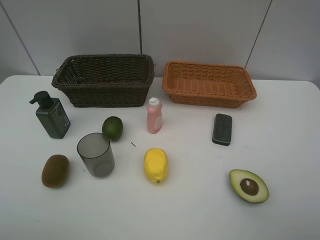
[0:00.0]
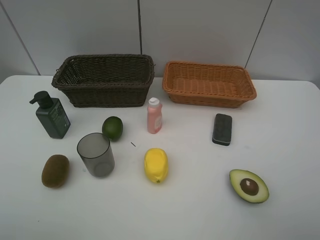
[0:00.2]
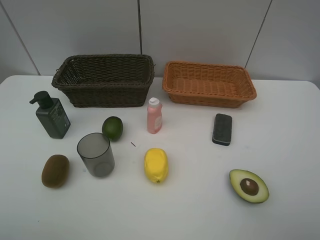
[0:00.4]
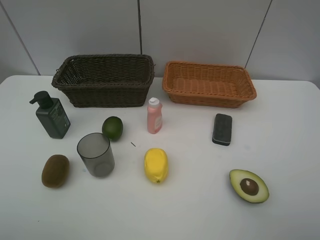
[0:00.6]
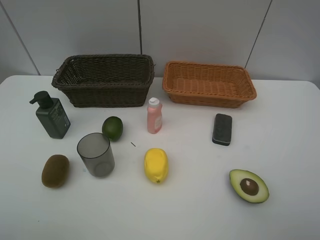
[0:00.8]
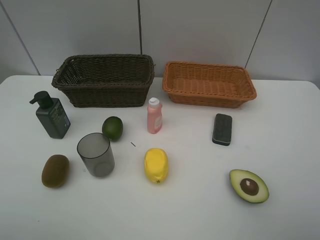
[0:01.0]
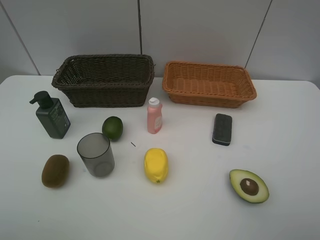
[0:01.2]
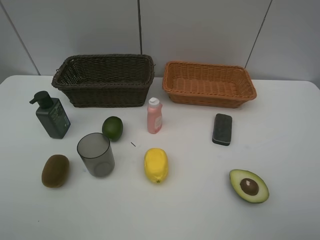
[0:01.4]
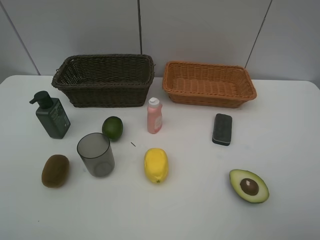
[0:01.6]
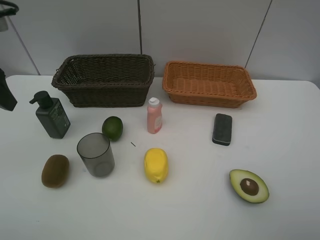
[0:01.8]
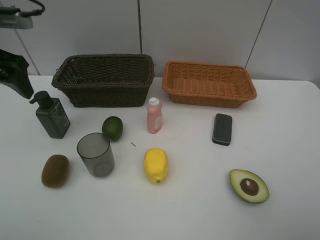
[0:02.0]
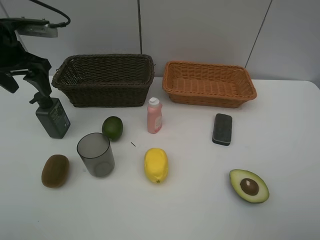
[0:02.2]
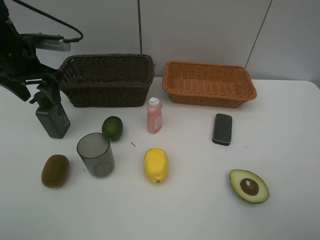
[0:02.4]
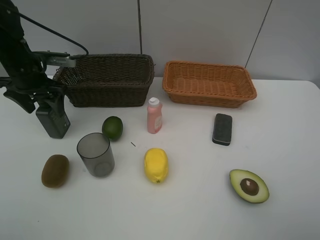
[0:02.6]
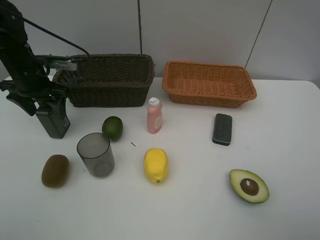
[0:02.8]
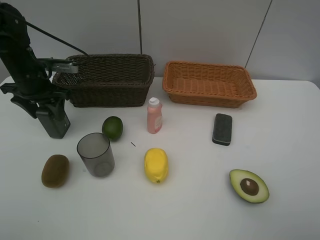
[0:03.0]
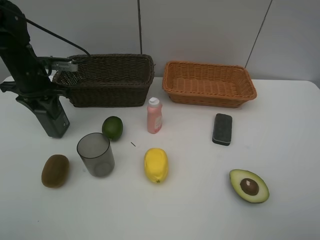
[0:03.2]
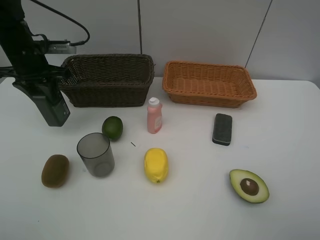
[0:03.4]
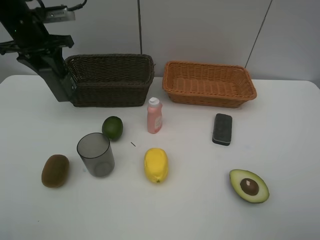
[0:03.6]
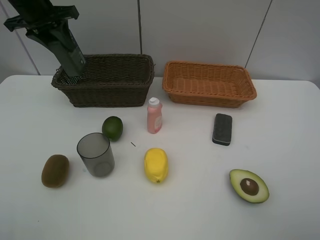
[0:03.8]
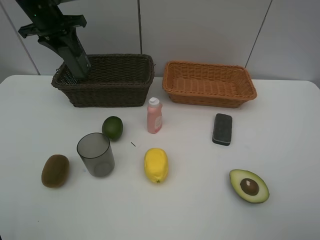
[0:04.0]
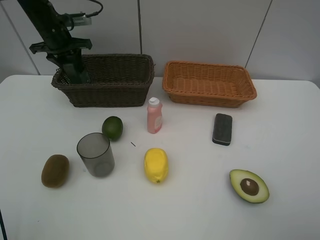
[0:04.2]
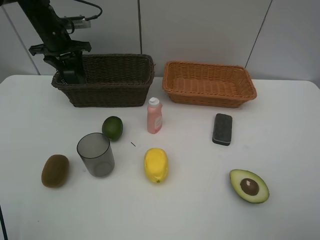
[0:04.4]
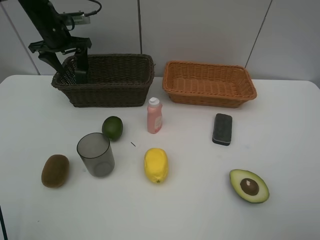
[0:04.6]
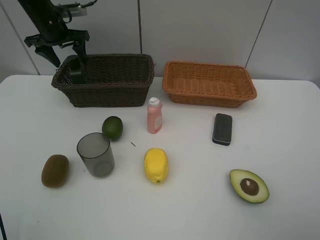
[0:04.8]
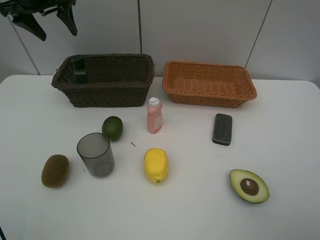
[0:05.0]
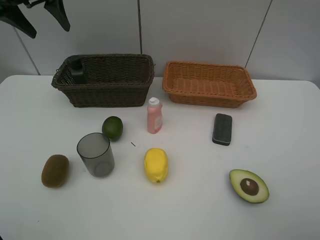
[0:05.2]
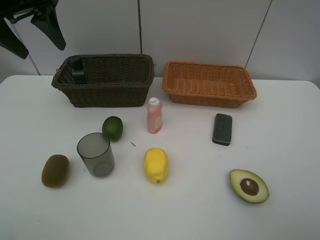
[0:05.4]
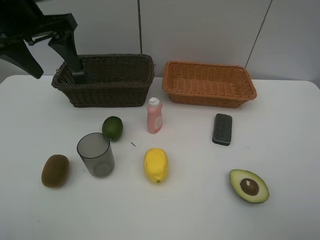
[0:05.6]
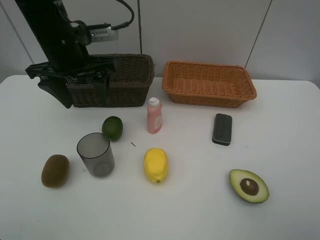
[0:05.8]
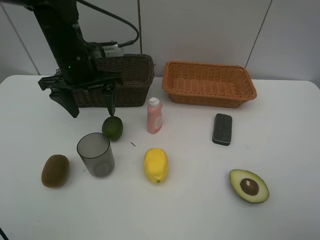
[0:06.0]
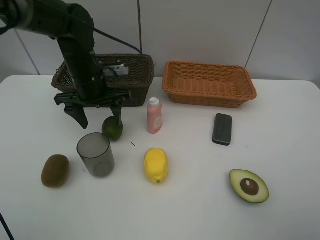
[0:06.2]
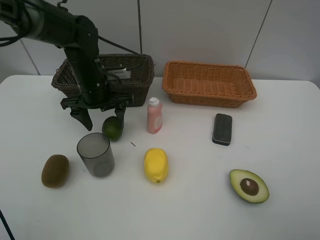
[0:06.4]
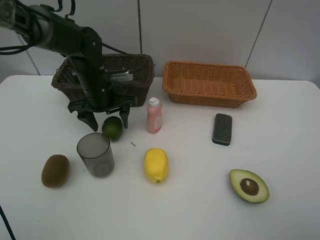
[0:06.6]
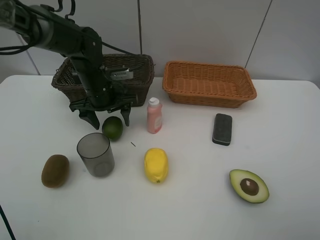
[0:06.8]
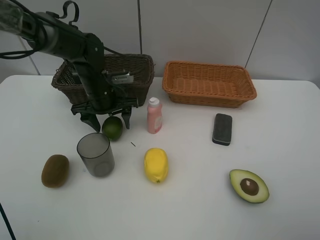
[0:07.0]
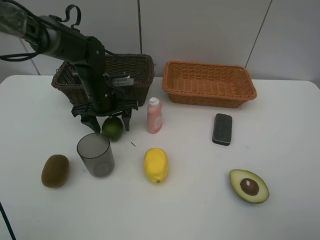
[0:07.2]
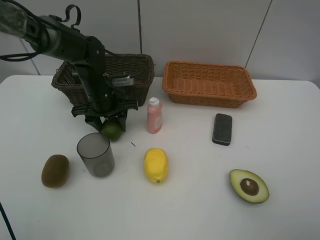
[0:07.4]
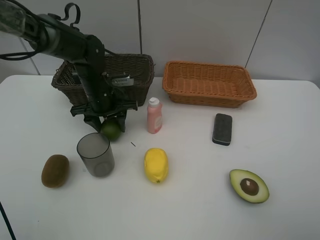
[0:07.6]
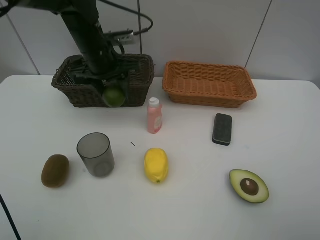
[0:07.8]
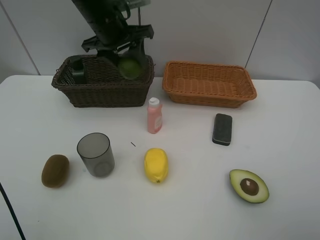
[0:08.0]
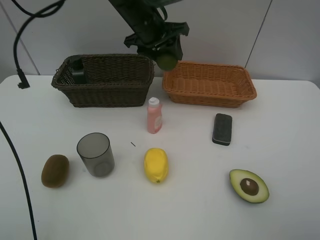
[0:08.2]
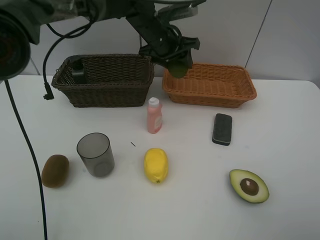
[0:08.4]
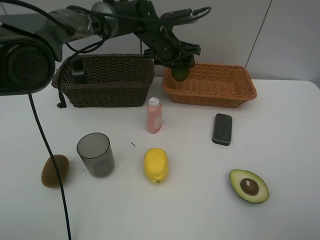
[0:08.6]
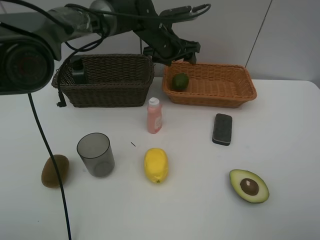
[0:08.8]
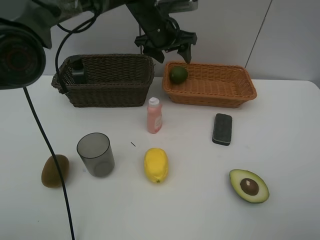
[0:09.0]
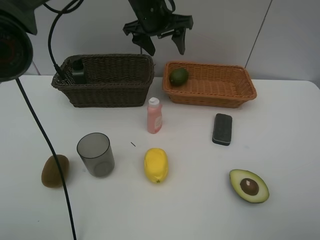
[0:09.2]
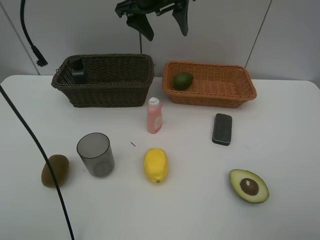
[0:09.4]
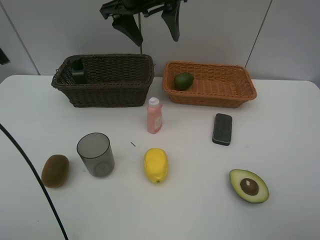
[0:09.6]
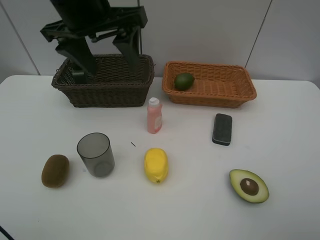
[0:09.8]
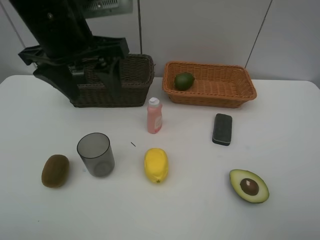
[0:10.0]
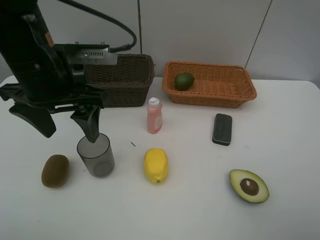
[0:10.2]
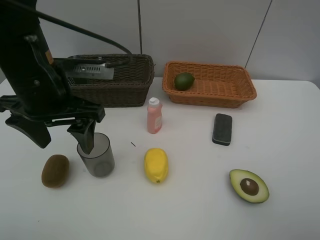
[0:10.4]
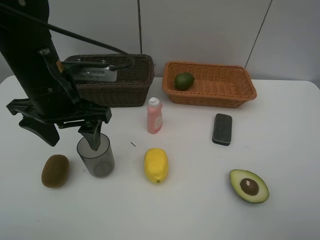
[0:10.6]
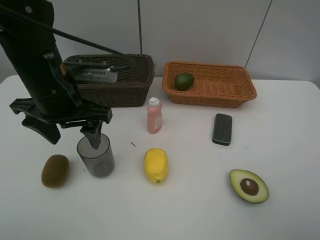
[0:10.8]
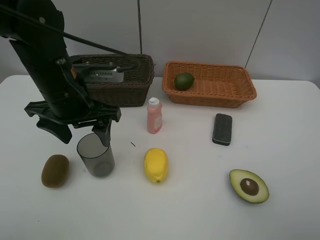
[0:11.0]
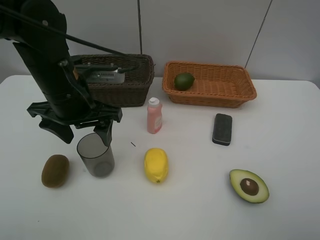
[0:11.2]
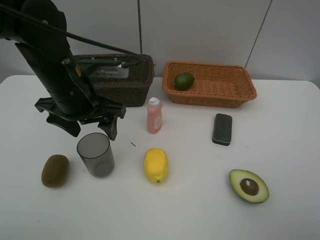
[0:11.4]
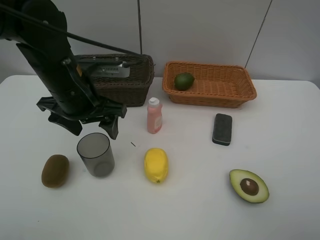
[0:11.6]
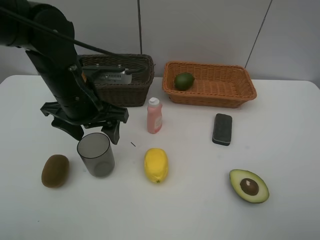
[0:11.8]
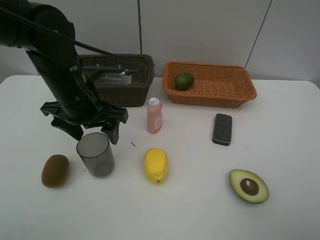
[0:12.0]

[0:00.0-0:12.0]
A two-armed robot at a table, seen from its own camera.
Task of the whole recording: Place multiple objects separately in different baskets.
Step, 0:00.0 to 0:03.4: Pick up the hard facial cleanser with left gripper.
Step, 0:03.6 to 0:04.6: Place the hard facial cleanser in the dark basket with left gripper.
Step, 0:04.8 to 0:07.6: Pick up the lime with left gripper.
Step, 0:07.8 to 0:08.8: Place the lime in the light basket with left gripper.
0:01.6 to 0:03.0: The left gripper travels forward and downward by about 25 cm, and closes up.
0:03.0 to 0:04.4: The left gripper goes roughly 15 cm forward, reaches roughly 15 cm upward, then returns, and closes and opens again.
0:04.4 to 0:06.0: The left gripper moves backward and to the right, about 20 cm.
0:06.0 to 0:07.6: The left gripper heads downward, covering about 10 cm, and closes.
0:07.6 to 0:09.0: The left gripper moves up and down over some 15 cm, changing direction 2 times, and opens up.
0:09.0 to 0:10.4: The left gripper is displaced backward and to the left by approximately 25 cm.
0:10.4 to 0:12.0: The left gripper shifts by roughly 5 cm.

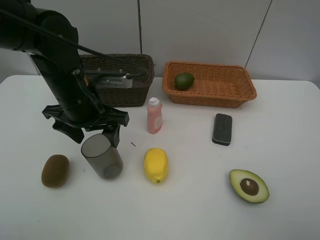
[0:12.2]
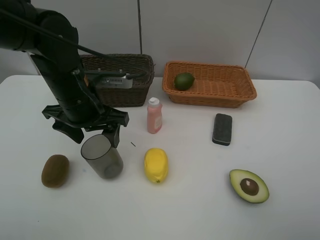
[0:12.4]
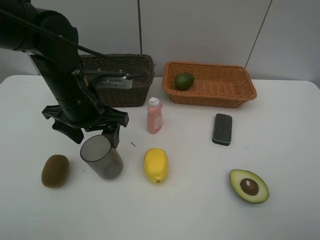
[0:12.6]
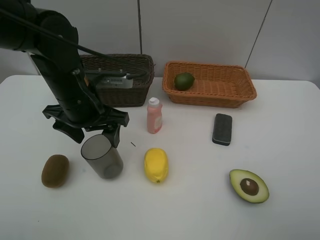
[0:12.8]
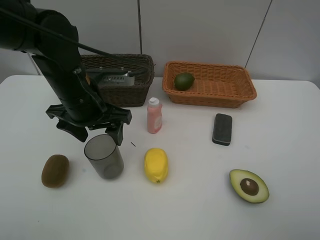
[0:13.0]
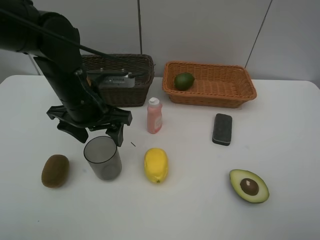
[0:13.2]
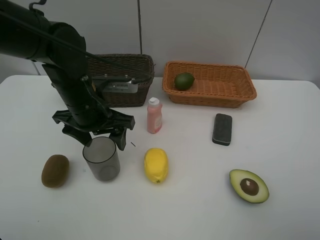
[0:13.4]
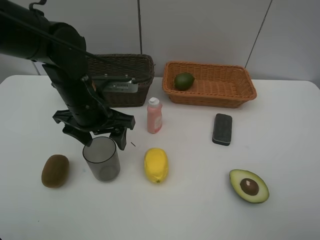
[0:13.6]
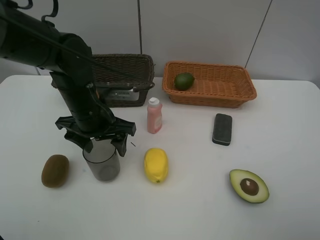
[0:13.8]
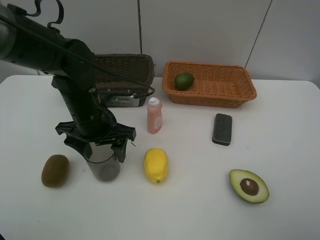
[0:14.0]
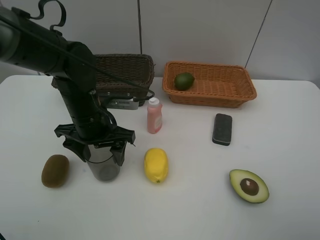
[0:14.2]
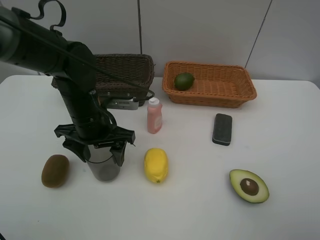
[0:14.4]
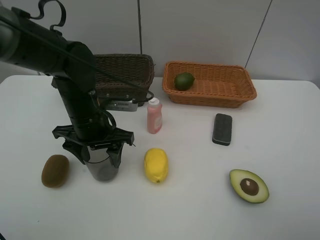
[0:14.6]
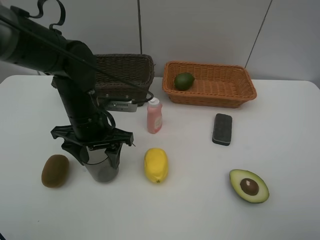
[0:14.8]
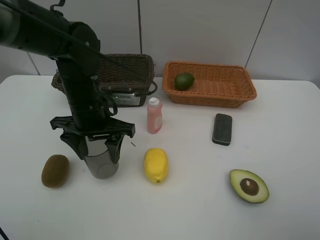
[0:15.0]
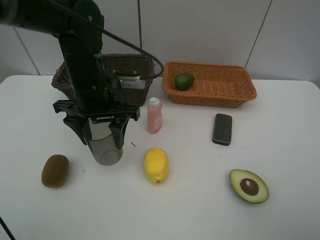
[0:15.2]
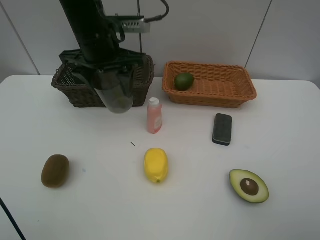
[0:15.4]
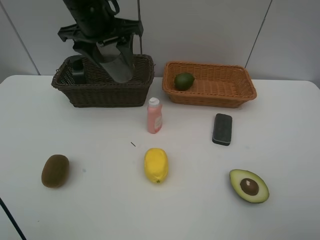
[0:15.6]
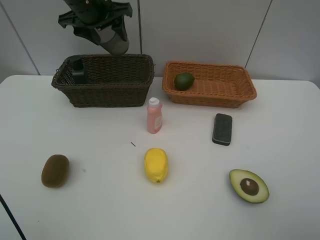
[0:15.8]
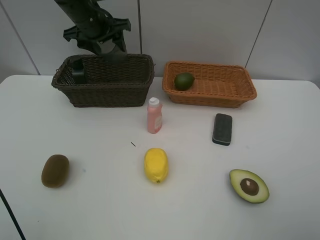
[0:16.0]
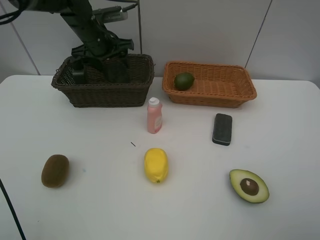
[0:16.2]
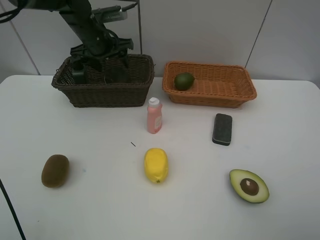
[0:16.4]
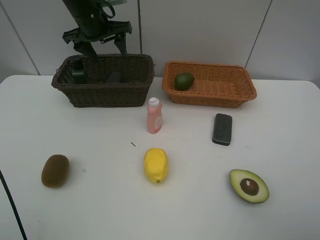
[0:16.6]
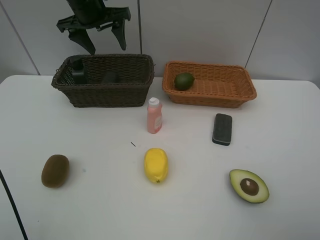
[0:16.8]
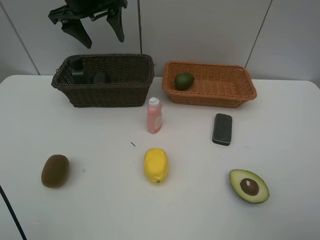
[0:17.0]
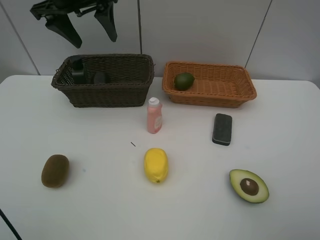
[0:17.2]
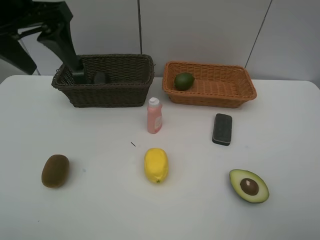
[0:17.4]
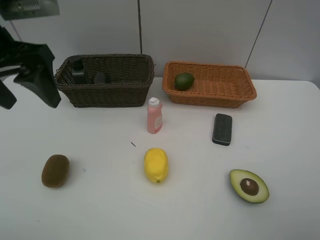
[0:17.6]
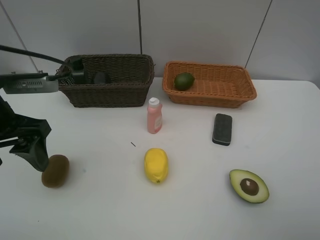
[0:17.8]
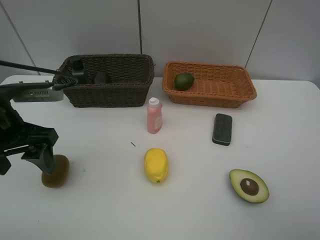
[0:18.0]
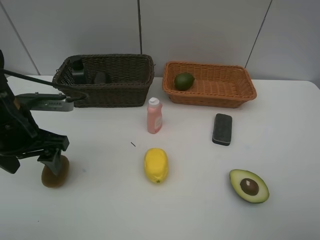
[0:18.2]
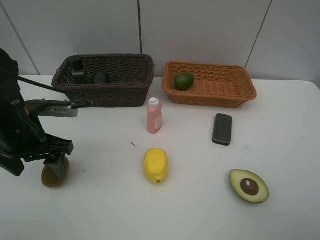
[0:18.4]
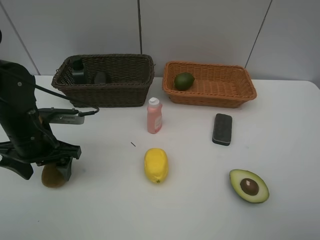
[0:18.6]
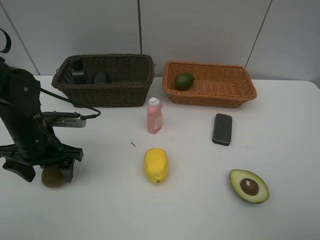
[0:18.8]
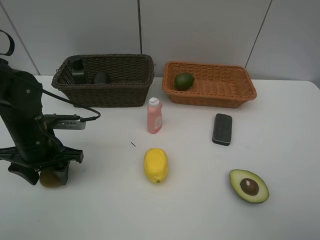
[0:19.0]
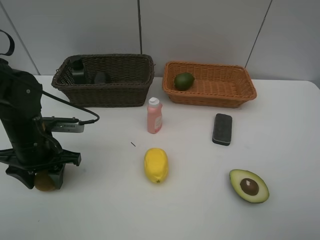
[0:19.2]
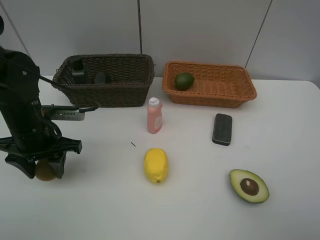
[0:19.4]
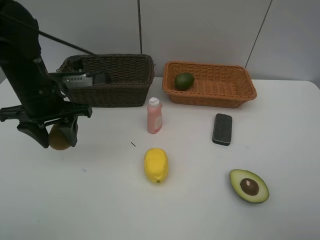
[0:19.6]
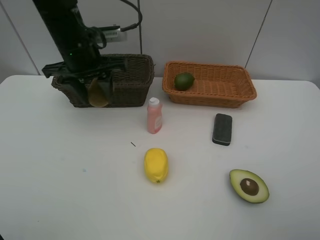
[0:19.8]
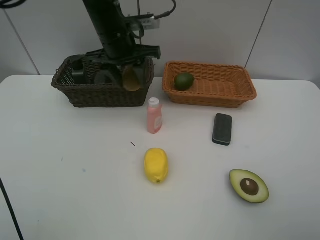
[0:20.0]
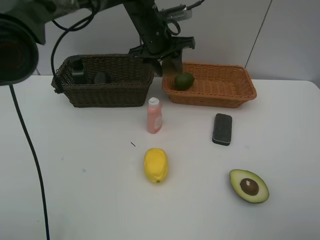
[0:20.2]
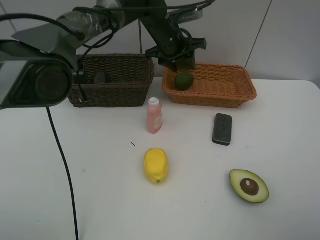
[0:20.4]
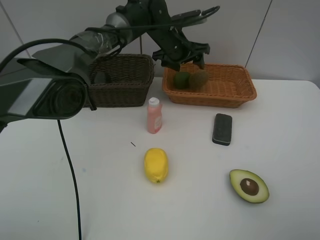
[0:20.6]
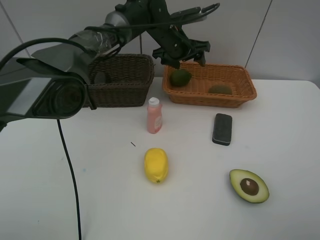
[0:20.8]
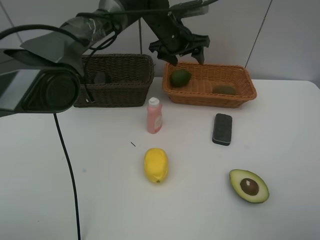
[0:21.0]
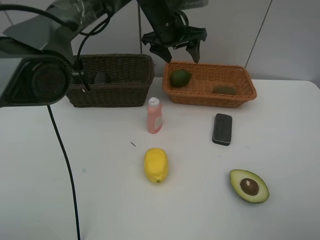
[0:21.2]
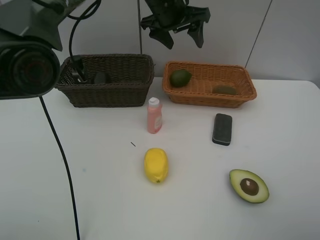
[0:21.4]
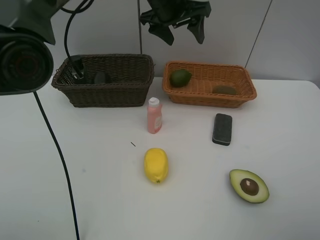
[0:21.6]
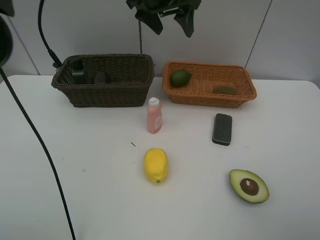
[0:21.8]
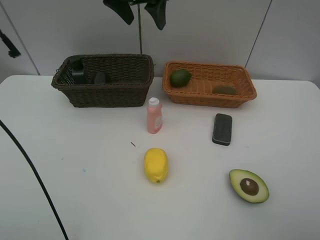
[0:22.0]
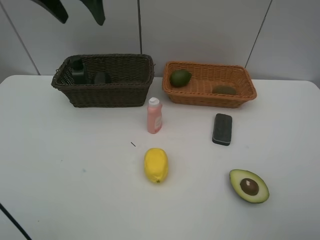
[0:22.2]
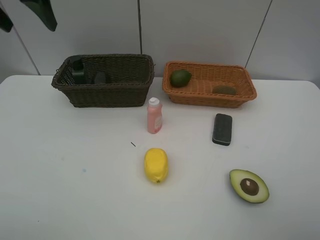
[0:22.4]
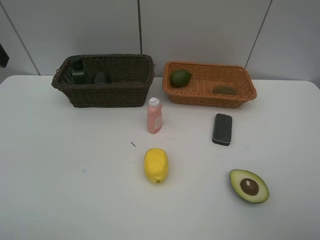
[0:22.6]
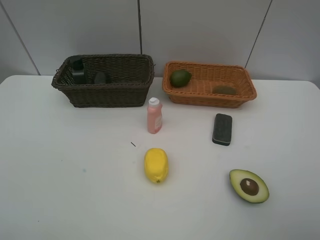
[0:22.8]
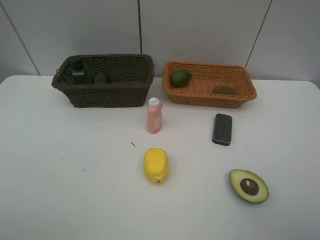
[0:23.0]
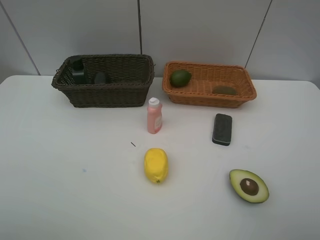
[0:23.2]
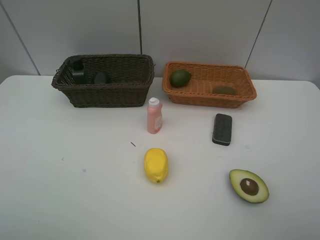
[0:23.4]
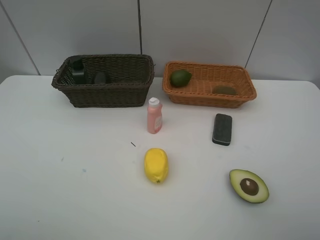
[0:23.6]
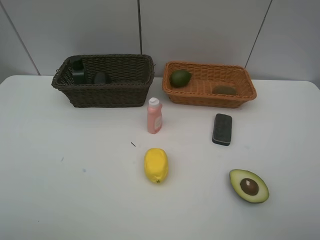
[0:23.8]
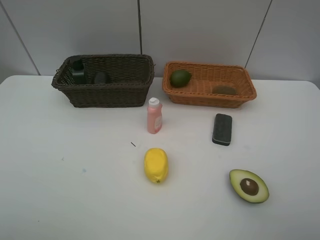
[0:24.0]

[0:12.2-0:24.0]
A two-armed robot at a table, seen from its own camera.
Task of the whole recording: Place multiple objects separately in different baskets.
Step, 0:12.2 to 0:15.0: Pick up gray cup with left gripper.
Step, 0:15.2 to 0:16.6: Place the gray cup in the dark basket with left gripper.
Step, 0:16.8 to 0:19.4: Pick up kiwi with left gripper.
Step, 0:19.6 to 0:20.8: Place the kiwi in the light basket with left gripper.
0:12.2 to 0:15.2: The grippers make only small movements.
0:15.2 to 0:16.6: The left gripper travels forward by roughly 15 cm.
0:16.6 to 0:18.2: The left gripper heads backward, covering approximately 25 cm.
0:18.2 to 0:19.6: The left gripper shifts some 5 cm forward, travels downward and back again, about 5 cm each way, and closes.
0:19.6 to 0:21.0: The left gripper moves to the right and forward, approximately 25 cm, and opens its fingers.
0:21.0 to 0:22.6: The left gripper heads to the left, backward and upward, covering some 40 cm.
